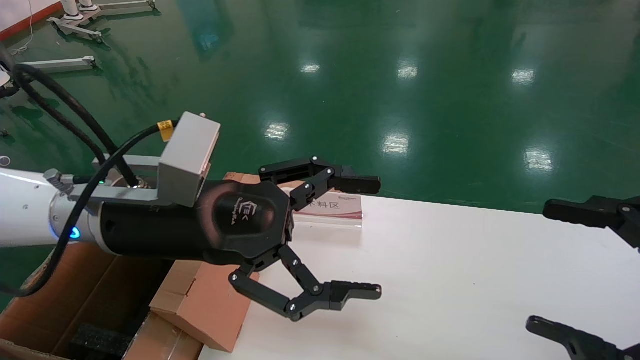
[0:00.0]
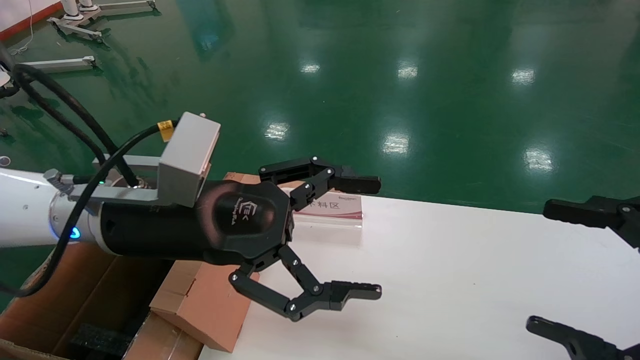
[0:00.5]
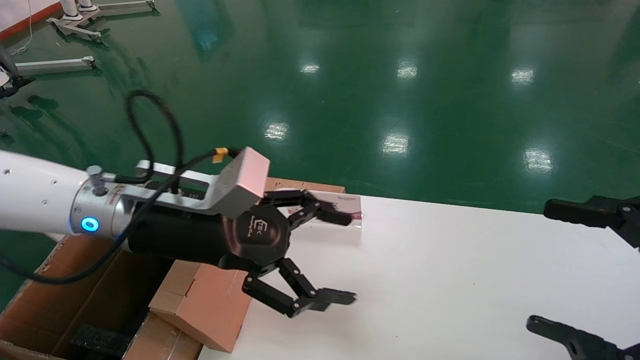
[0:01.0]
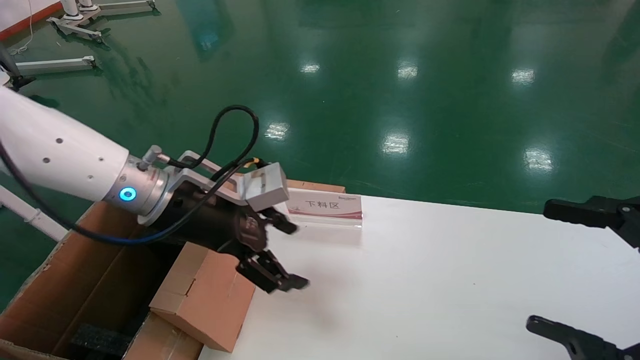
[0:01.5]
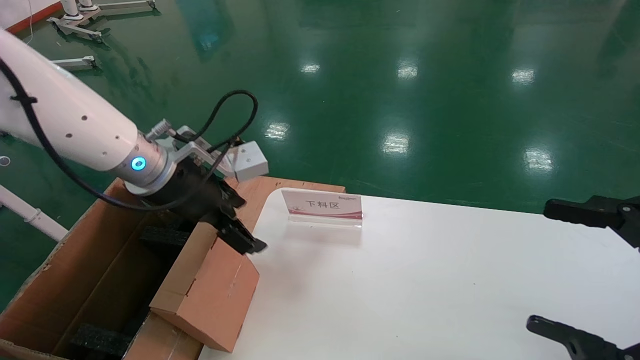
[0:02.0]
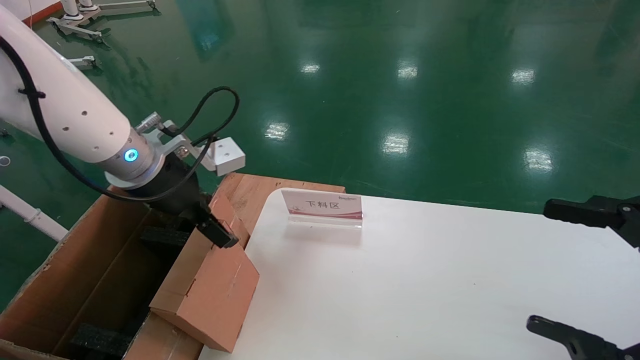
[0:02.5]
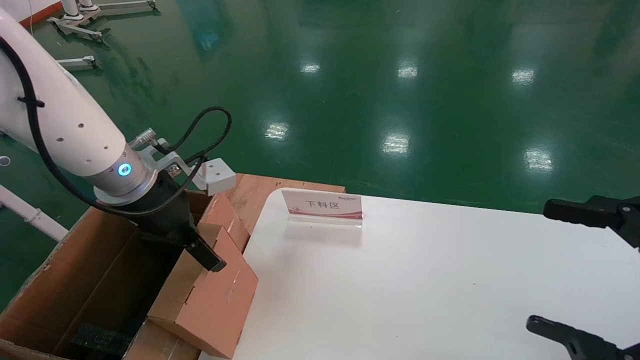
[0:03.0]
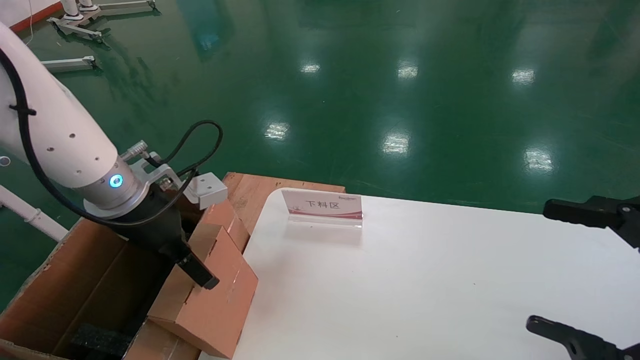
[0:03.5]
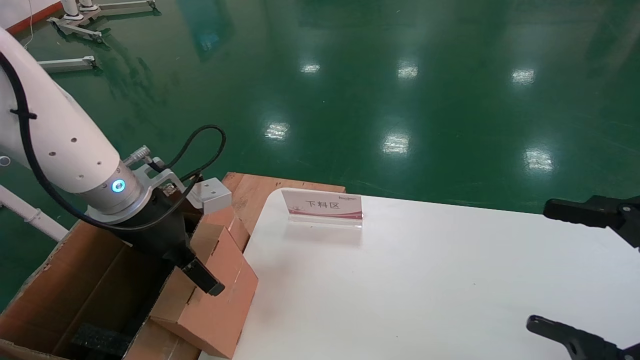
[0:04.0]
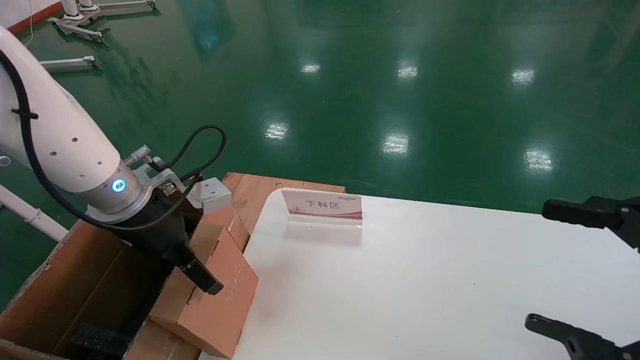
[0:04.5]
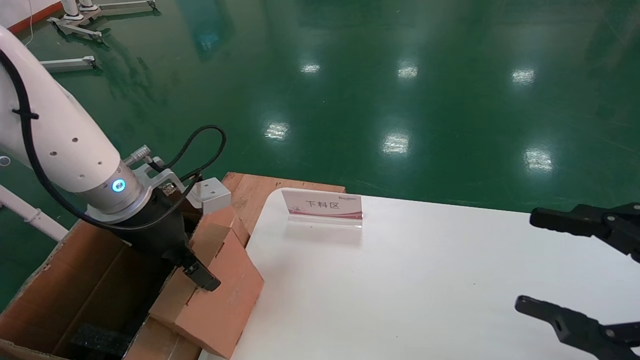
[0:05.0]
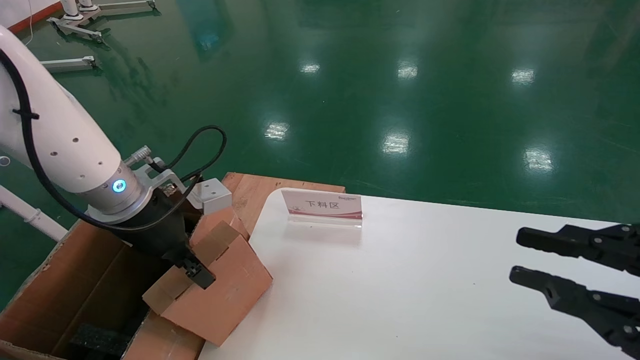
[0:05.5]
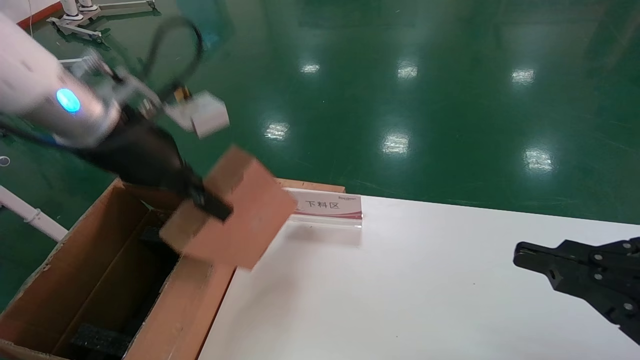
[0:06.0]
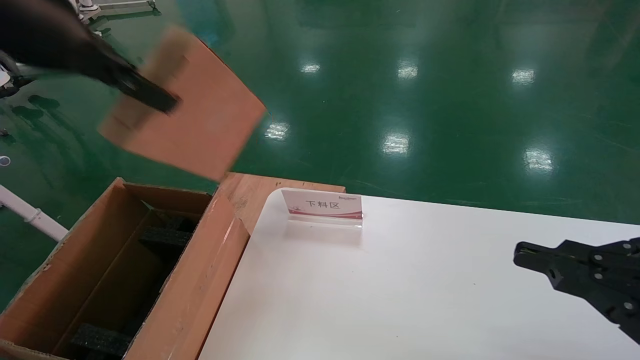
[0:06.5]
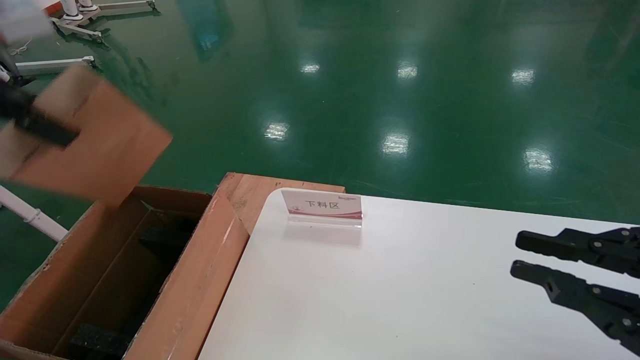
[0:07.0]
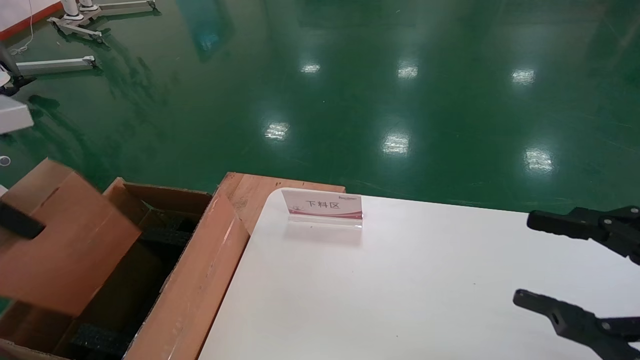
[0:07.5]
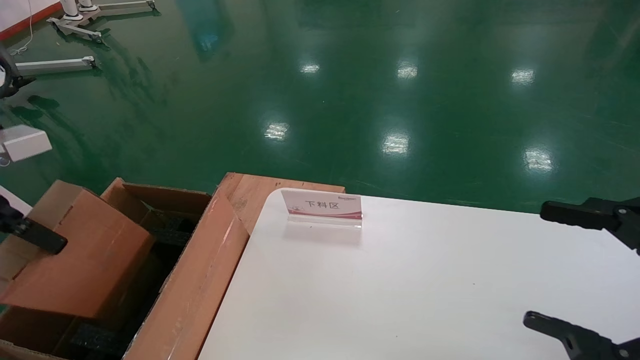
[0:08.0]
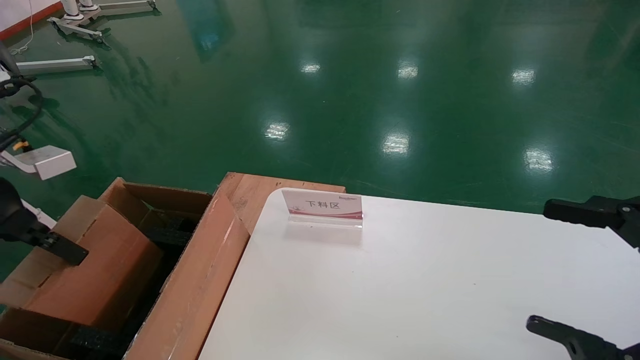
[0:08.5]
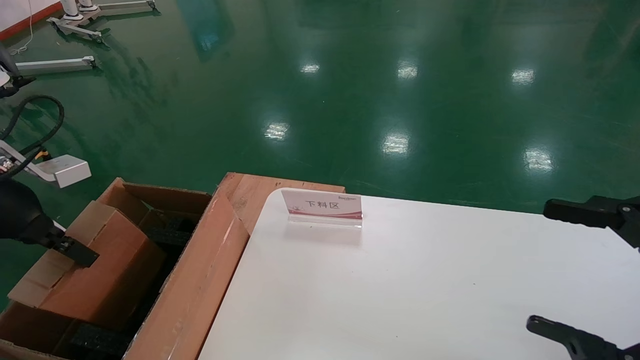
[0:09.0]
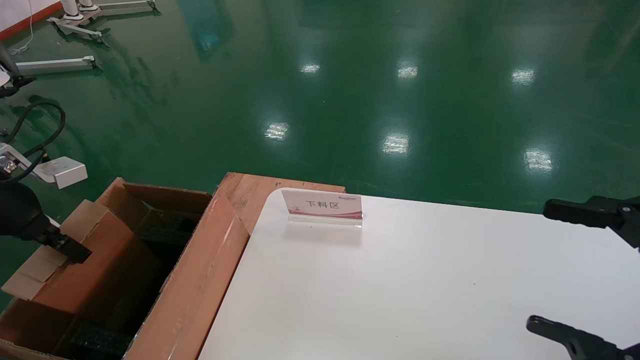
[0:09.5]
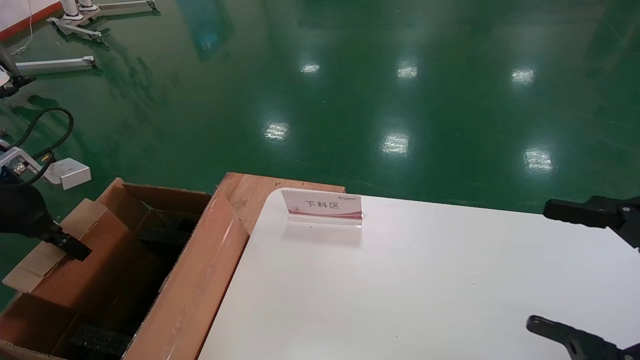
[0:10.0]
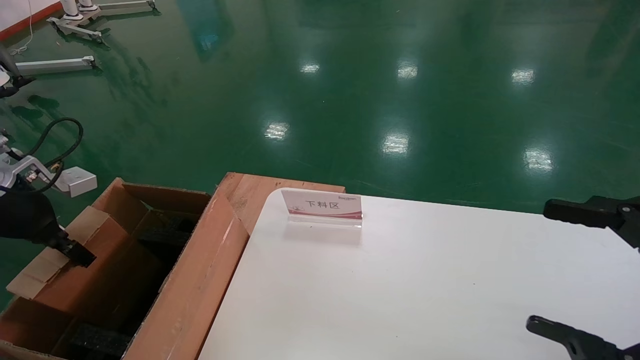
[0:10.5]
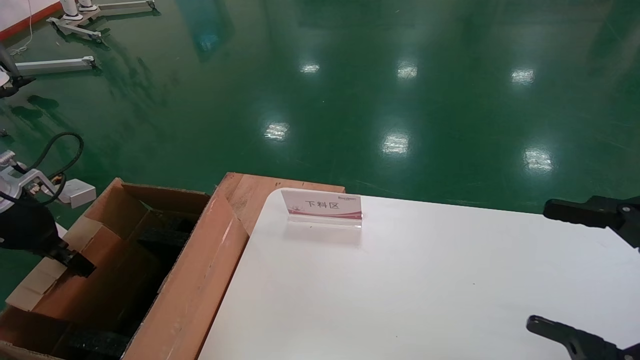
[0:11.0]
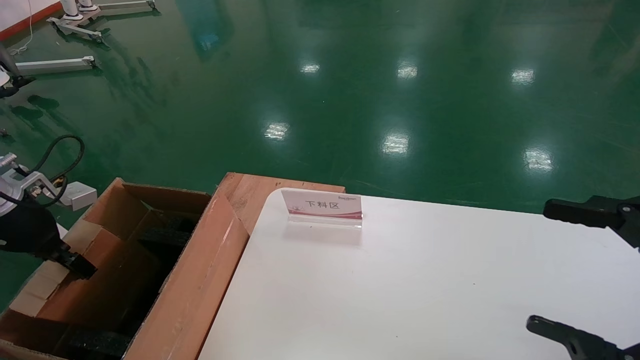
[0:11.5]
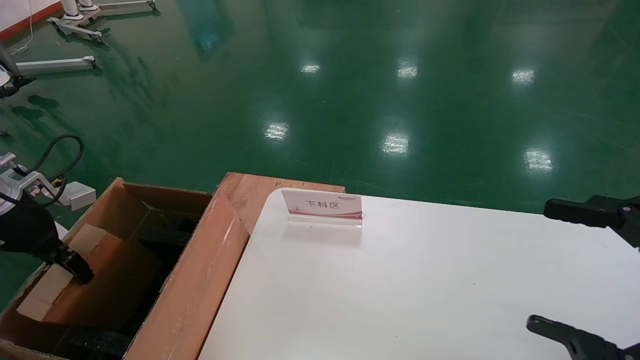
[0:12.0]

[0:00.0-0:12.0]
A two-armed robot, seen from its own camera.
Task of the whole recording: pick up the small cardboard box and load it into the large cardboard box.
Step, 0:01.5 to 0:05.0: Pick up the mouse and power cord box.
0:00.0 to 0:02.0: The left gripper moves forward, about 10 cm.
0:04.0 to 0:06.0: The left gripper is displaced upward by approximately 10 cm, and closes up; the right gripper closes its fingers.
0:06.0 to 0:08.0: The right gripper opens up; the left gripper travels to the left and backward by roughly 20 cm.
0:08.0 to 0:10.0: The left gripper goes some 10 cm forward, downward and to the left.
0:10.0 to 0:12.0: The grippers make only small movements.

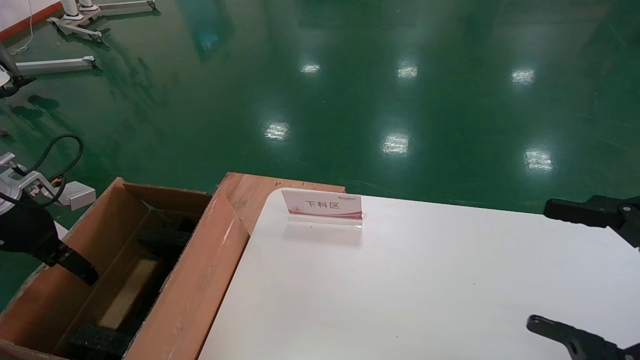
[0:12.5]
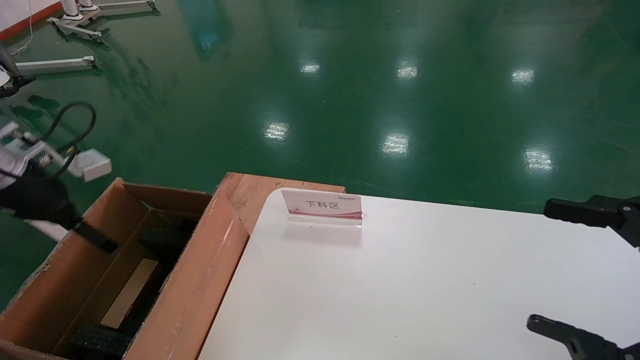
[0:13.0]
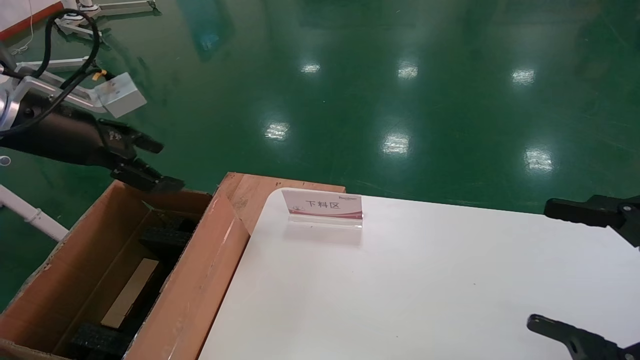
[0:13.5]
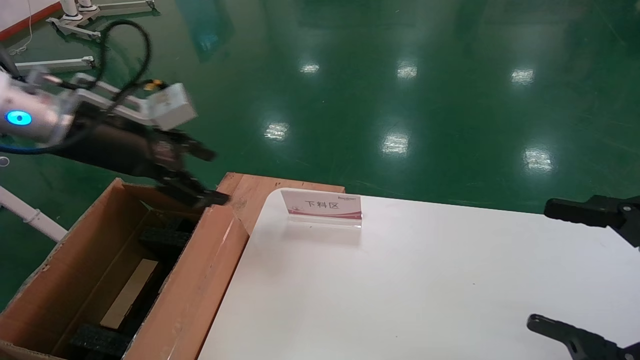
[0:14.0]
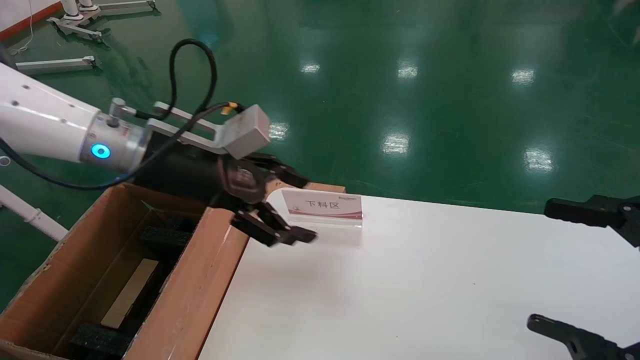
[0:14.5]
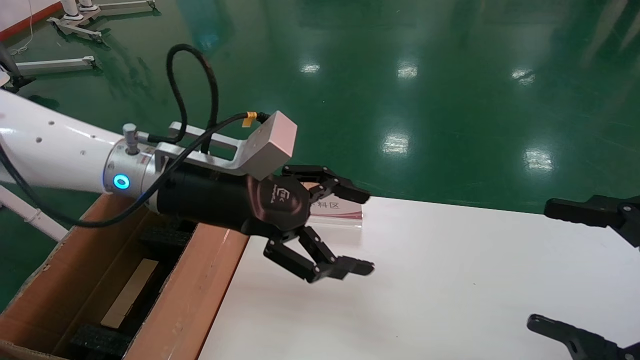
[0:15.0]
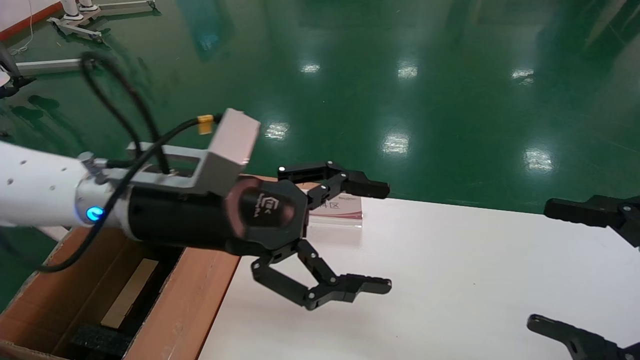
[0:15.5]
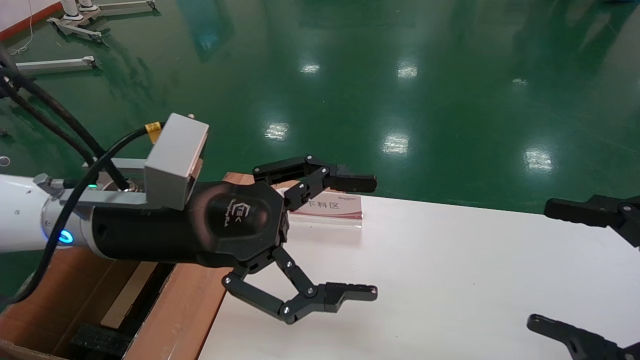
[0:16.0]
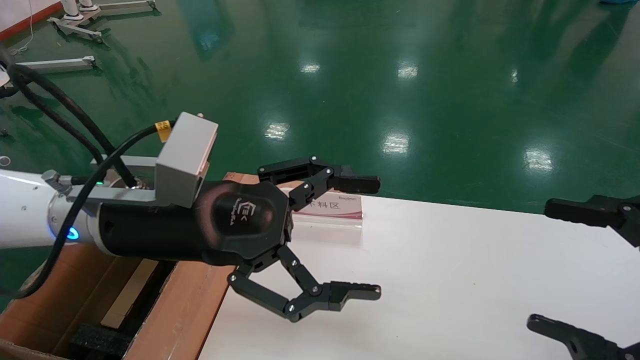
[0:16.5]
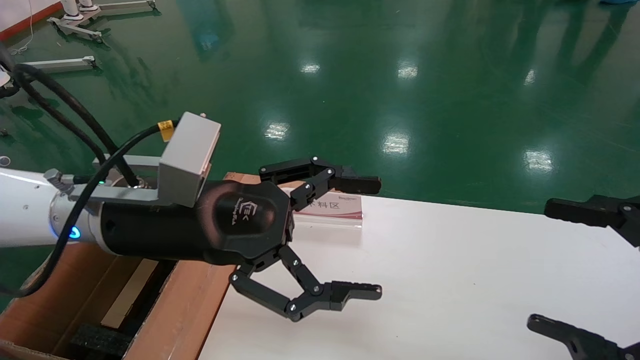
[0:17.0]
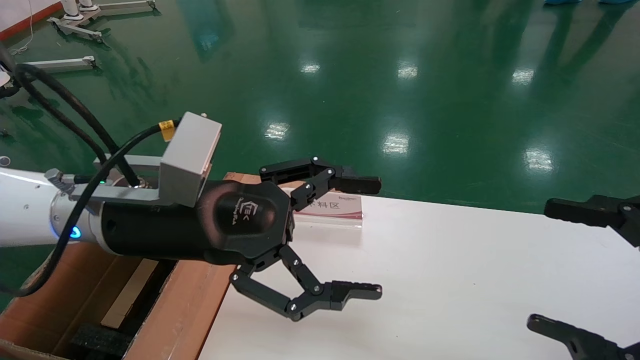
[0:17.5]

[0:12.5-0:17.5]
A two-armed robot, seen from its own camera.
Task of the whole recording: pick up the small cardboard box and load it into the large cardboard box.
0:12.5 to 0:15.0: The left gripper moves to the right, about 30 cm.
0:15.0 to 0:17.5: The left gripper travels backward by about 5 cm.
